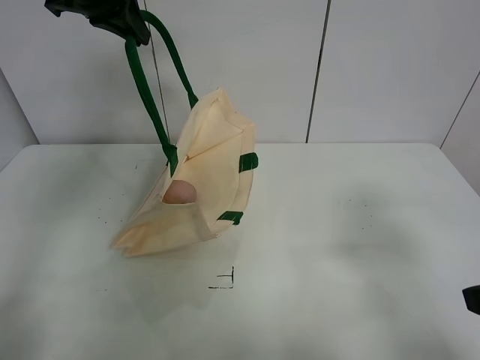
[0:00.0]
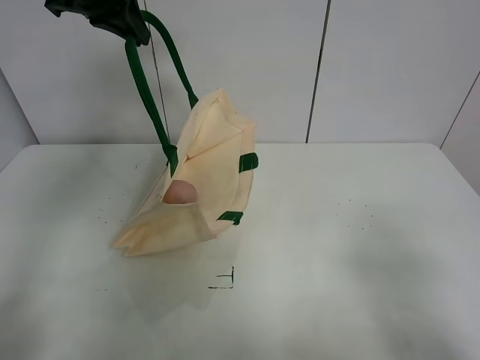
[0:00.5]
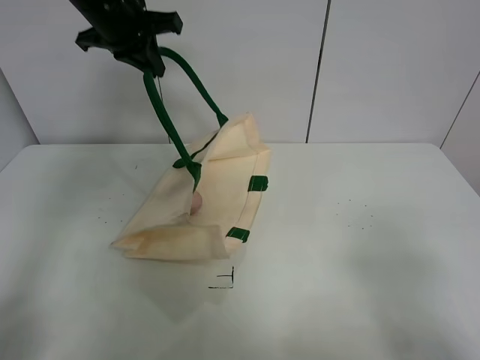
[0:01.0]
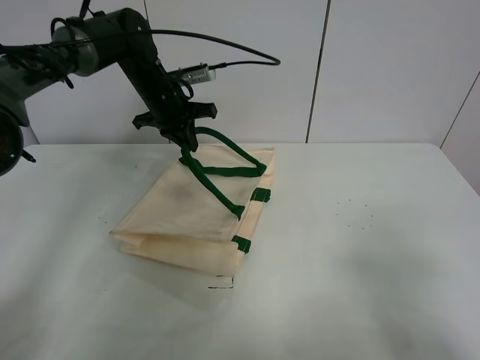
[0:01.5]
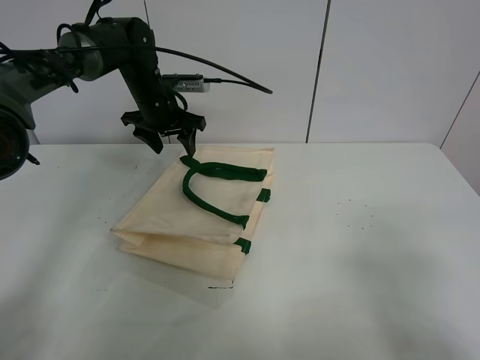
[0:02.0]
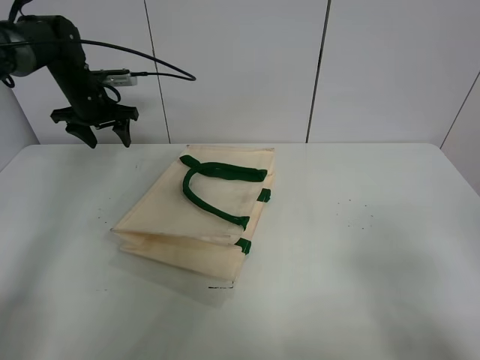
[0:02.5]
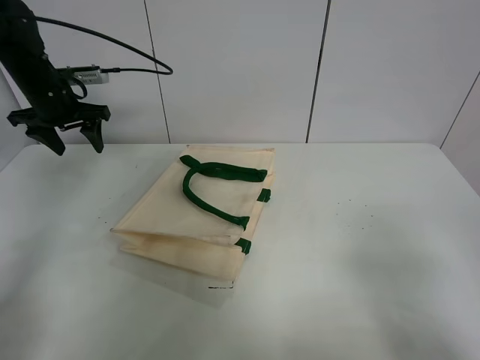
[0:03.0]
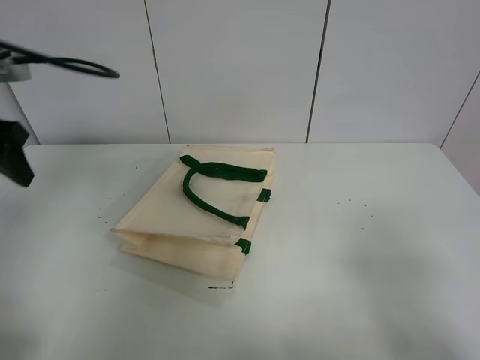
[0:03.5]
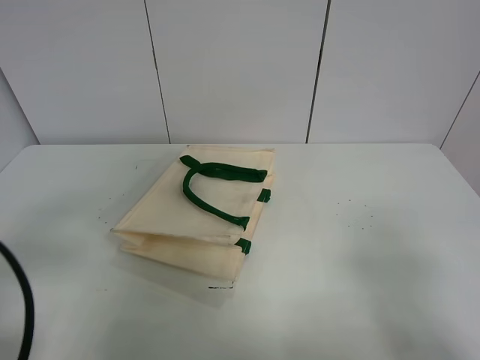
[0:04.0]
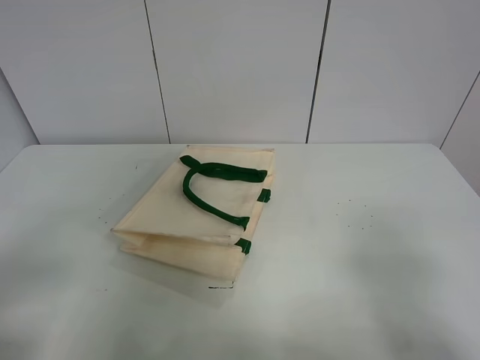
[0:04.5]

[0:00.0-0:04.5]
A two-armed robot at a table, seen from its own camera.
Task of the whole recording: open the white linen bag and put the peach in the bag.
Step, 0:00.0 to 0:02.0: Put down the handbag with left gripper.
0:00.0 to 0:02.0: The right gripper heads backward, covering about 5 cm, while the left gripper moves downward and forward, roughly 20 cm, and opens.
0:02.0 to 0:04.5: The left gripper shifts roughly 50 cm backward.

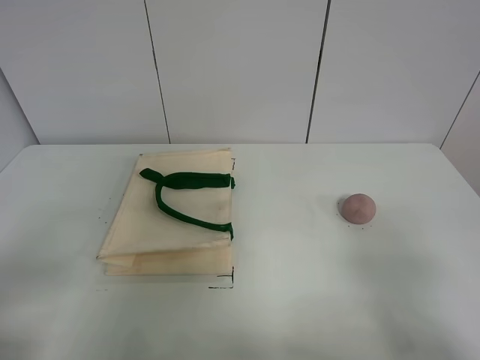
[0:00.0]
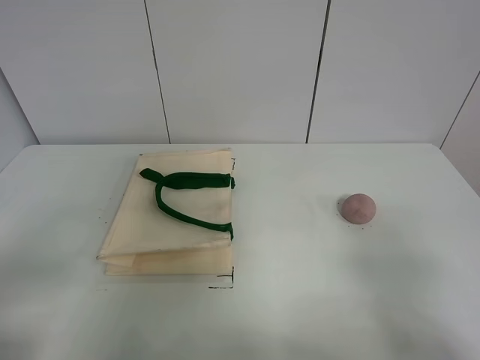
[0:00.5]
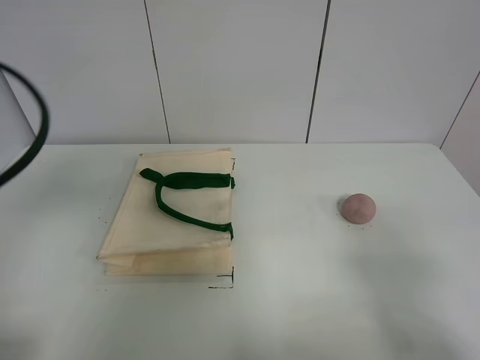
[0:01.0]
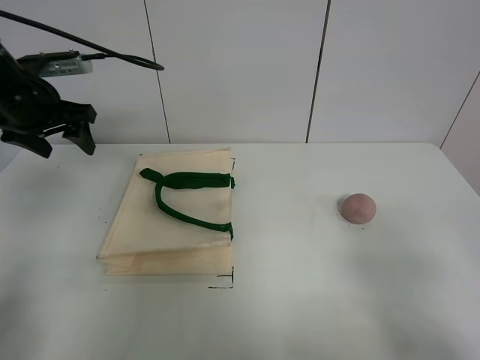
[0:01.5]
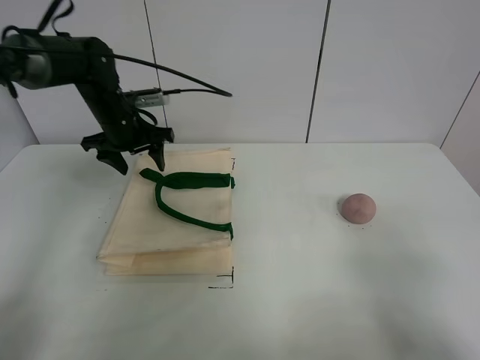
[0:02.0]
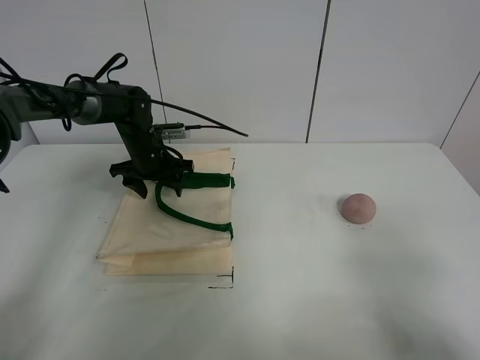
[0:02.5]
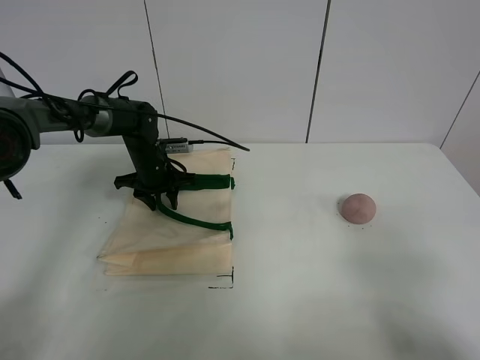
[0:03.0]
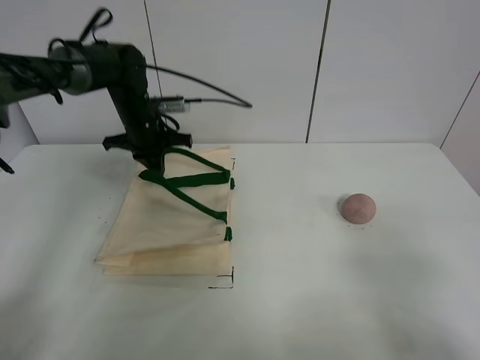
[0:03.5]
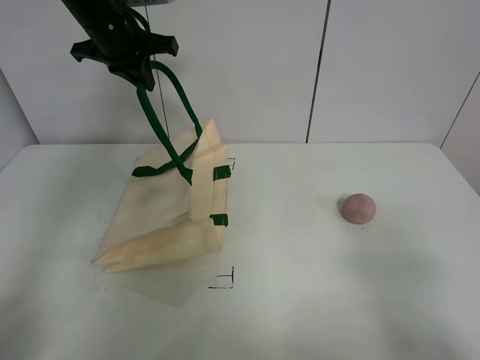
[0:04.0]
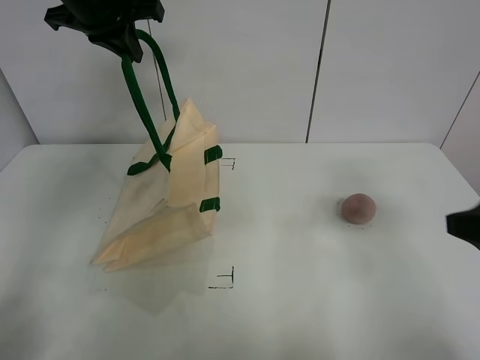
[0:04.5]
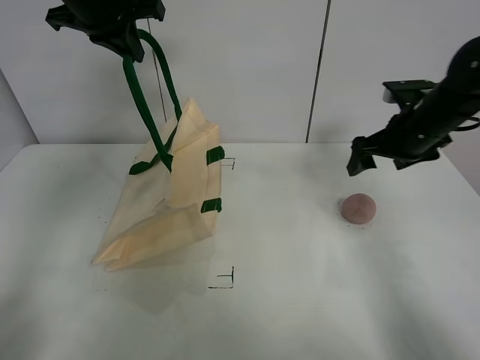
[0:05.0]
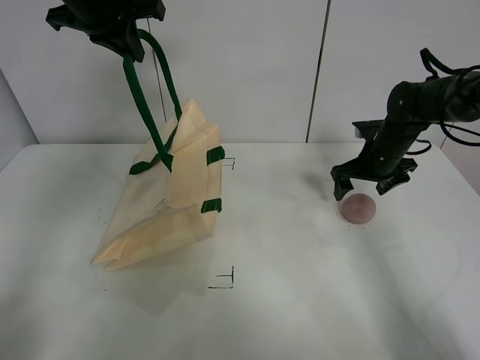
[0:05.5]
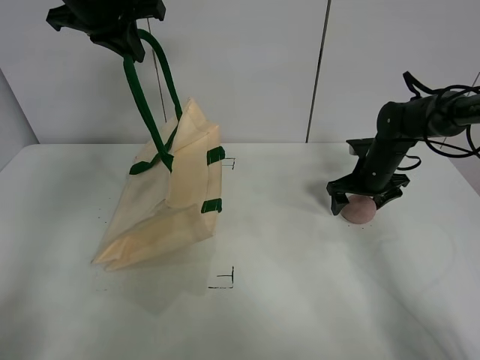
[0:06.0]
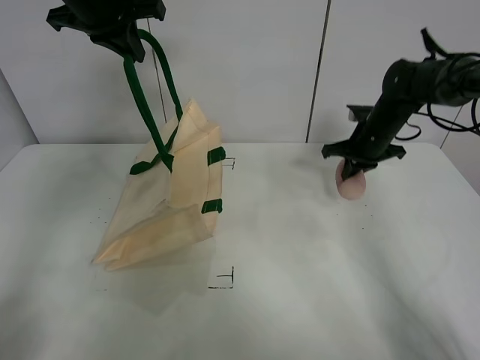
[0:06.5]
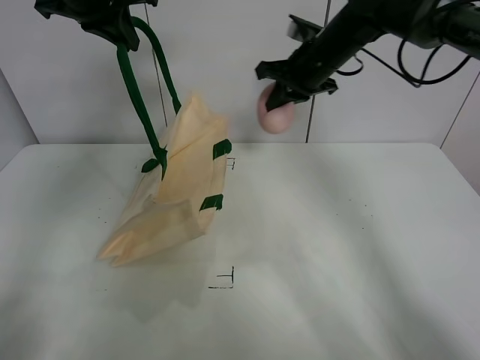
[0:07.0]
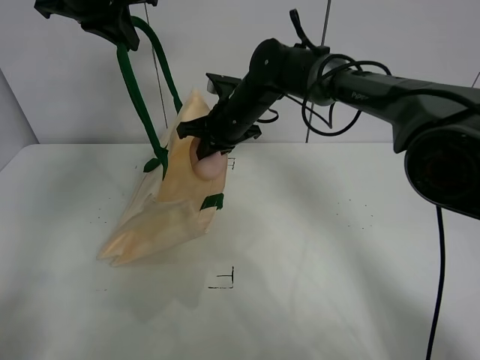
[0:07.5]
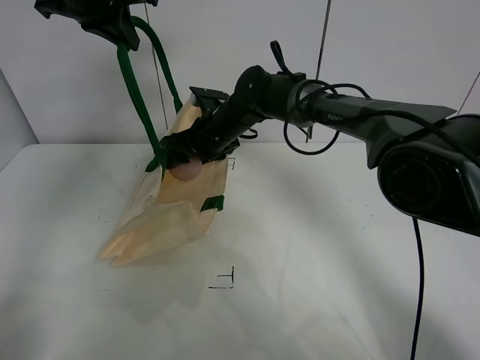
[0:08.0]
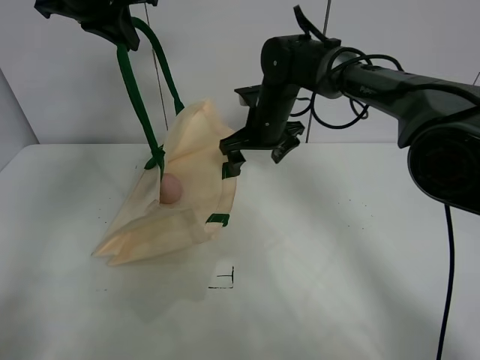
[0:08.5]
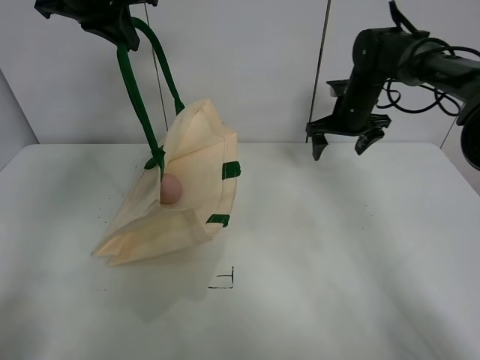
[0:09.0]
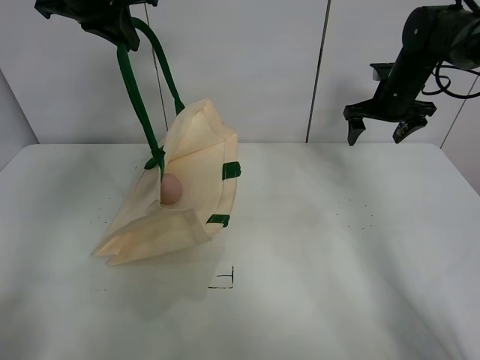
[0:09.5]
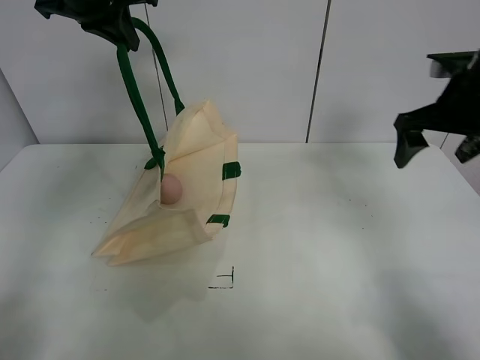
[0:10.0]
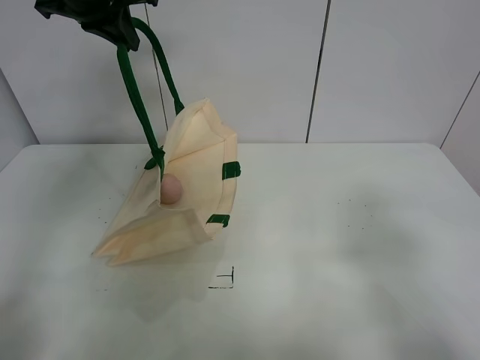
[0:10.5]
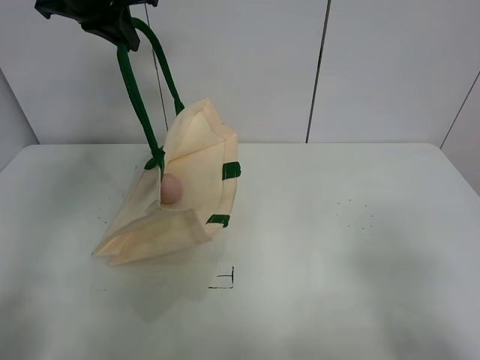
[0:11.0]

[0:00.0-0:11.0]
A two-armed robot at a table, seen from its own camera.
Task of the whole recording: open the white linen bag and put the peach in the bag.
Step, 0:00.0 to 0:04.0: Lift the handbag with left gripper.
Step, 0:04.5 to 0:06.0: Grasp the peach with right gripper.
Step, 0:06.5 to 0:08.5: Place the peach in the handbag with right gripper.
0:00.0 to 0:02.0: The left gripper travels forward by about 40 cm.
0:02.0 to 0:03.5: The left gripper moves approximately 10 cm downward and comes back, and closes up.
0:03.5 to 0:05.5: The left gripper goes about 20 cm upward; the right gripper moves forward, about 40 cm.
0:05.5 to 0:07.5: The right gripper shifts about 25 cm to the left, and closes up.
0:07.5 to 0:09.0: The right gripper heads to the right, covering about 25 cm, and opens.
0:09.0 to 0:11.0: The right gripper goes some 50 cm backward.

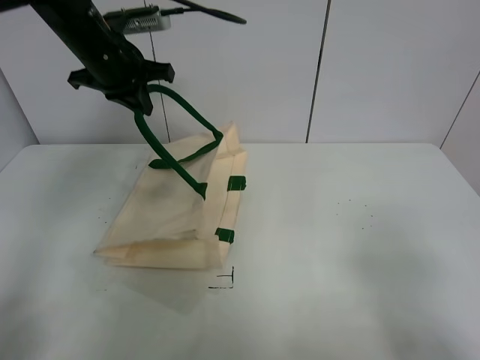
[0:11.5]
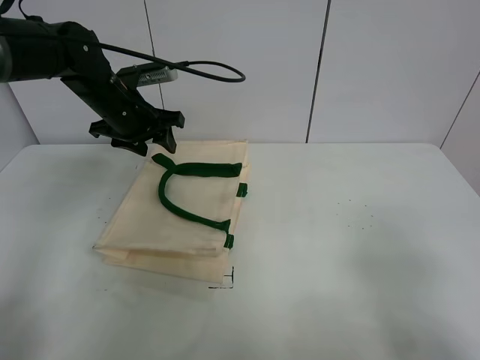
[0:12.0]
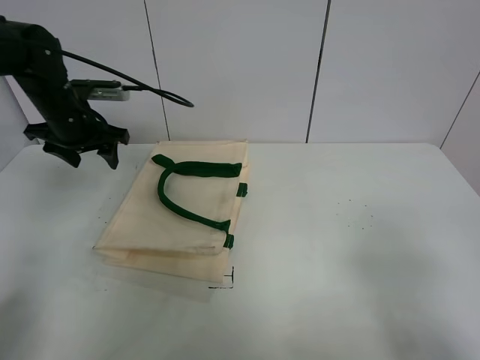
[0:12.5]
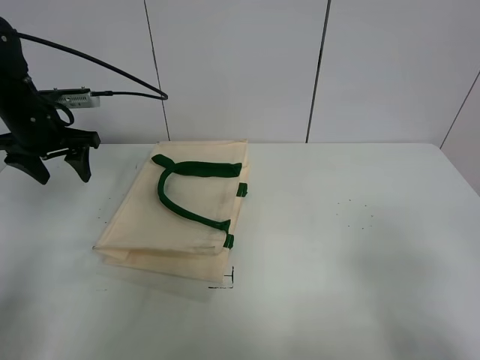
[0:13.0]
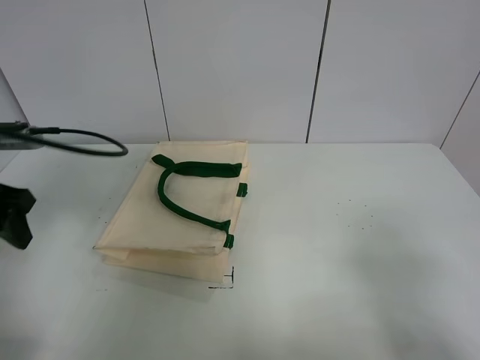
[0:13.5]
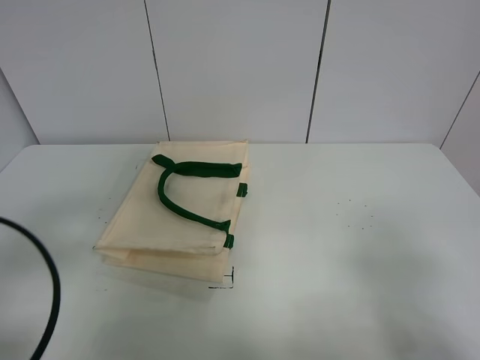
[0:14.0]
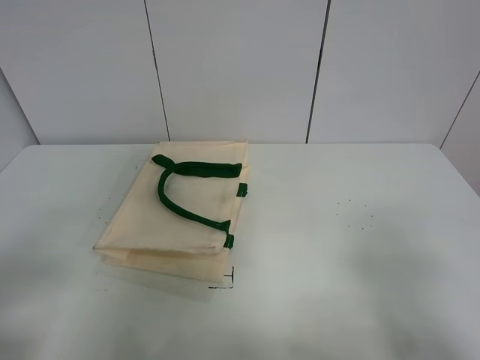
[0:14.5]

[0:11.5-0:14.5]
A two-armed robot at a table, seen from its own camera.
Task of the whole recording: open the white linen bag and put the peach in the bag.
0:11.5 to 0:13.0: The left gripper shifts some 15 cm to the left and downward, and opens.
0:13.0 to 0:14.5: The left gripper moves backward, some 35 cm.
